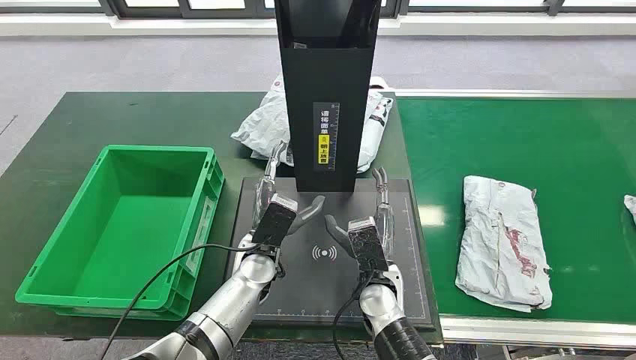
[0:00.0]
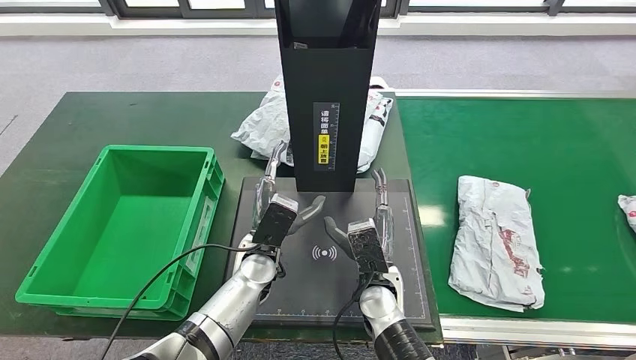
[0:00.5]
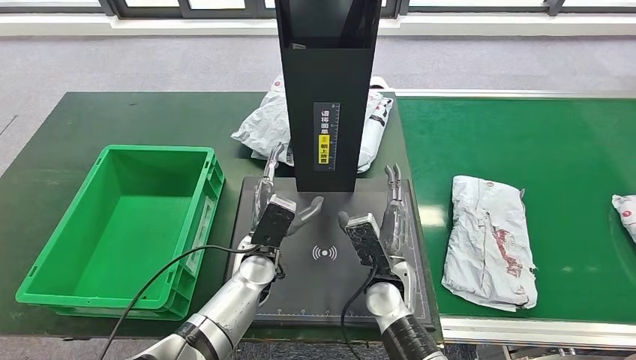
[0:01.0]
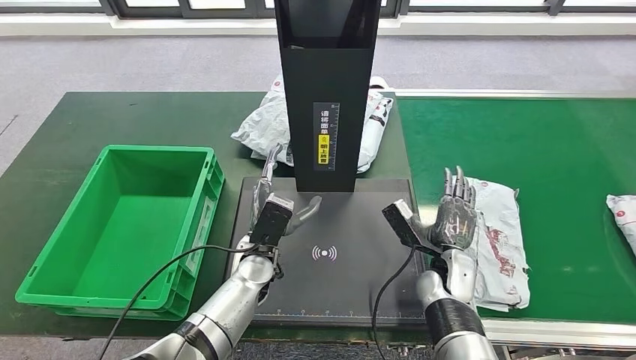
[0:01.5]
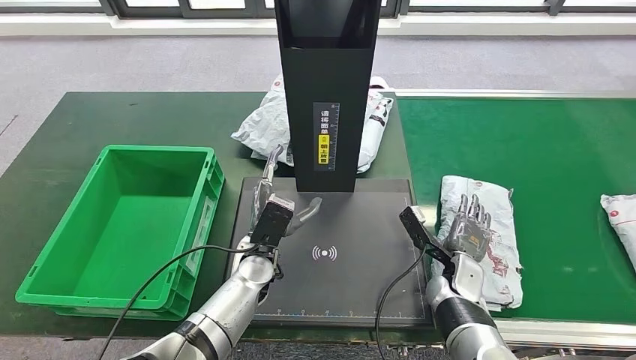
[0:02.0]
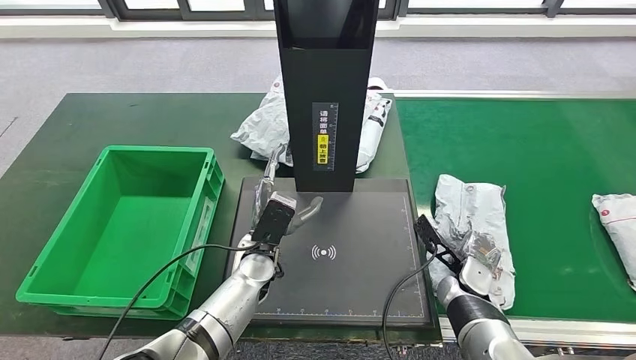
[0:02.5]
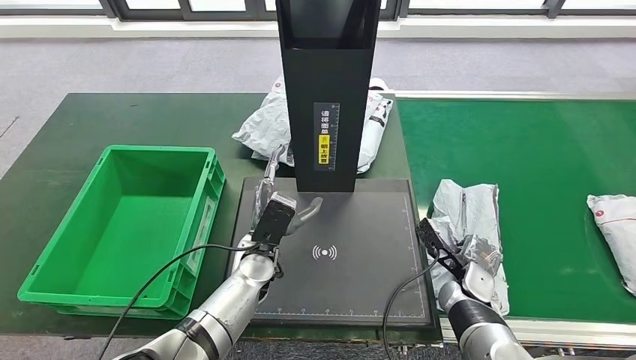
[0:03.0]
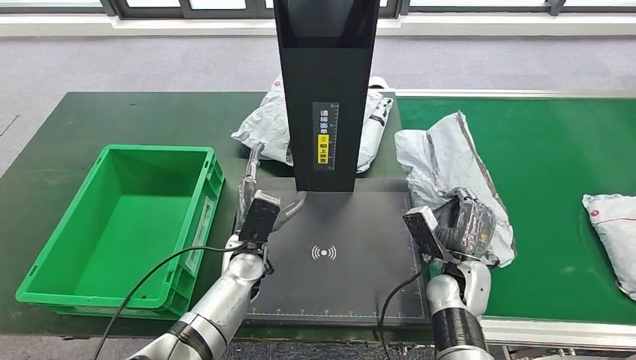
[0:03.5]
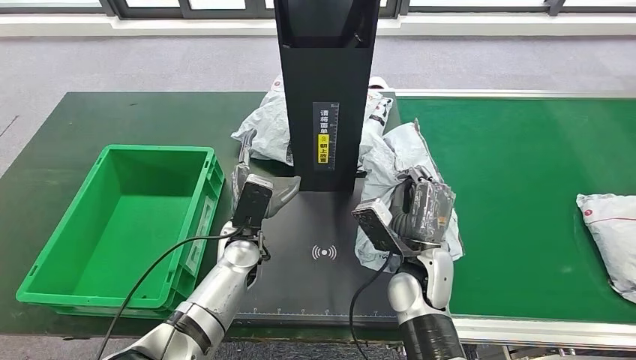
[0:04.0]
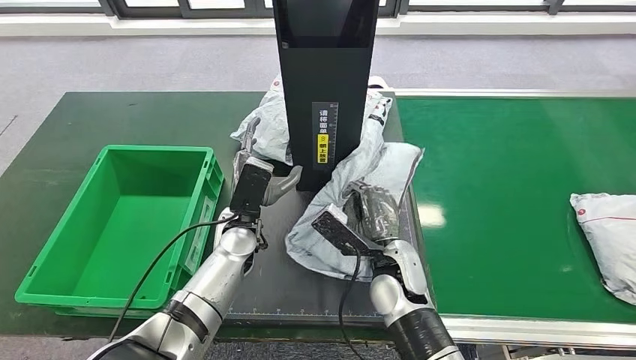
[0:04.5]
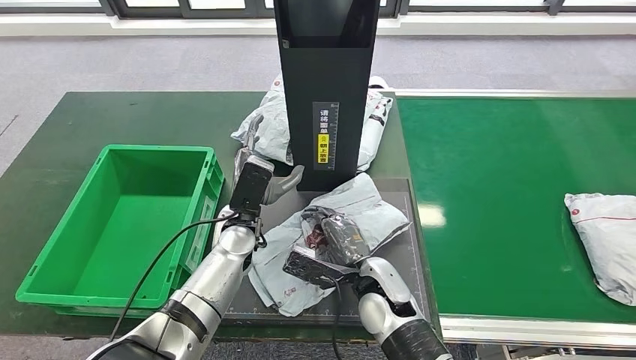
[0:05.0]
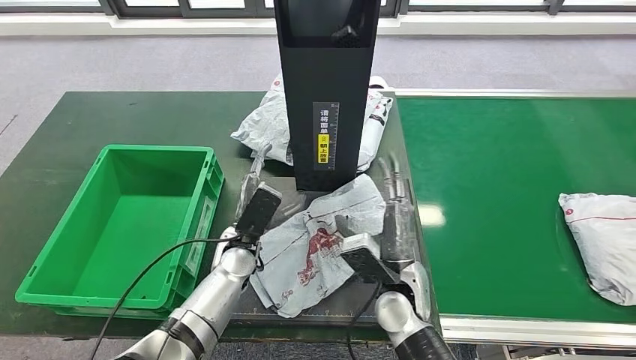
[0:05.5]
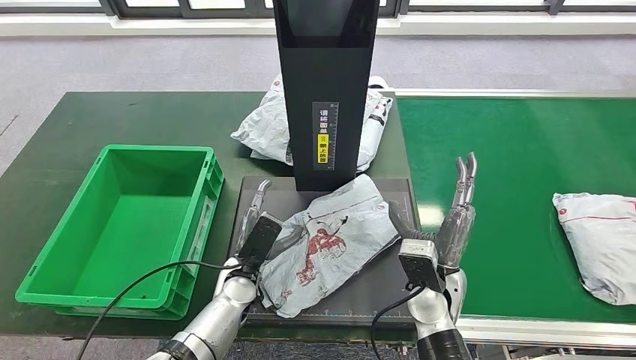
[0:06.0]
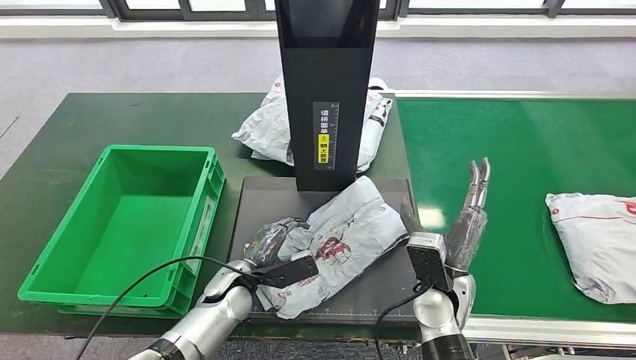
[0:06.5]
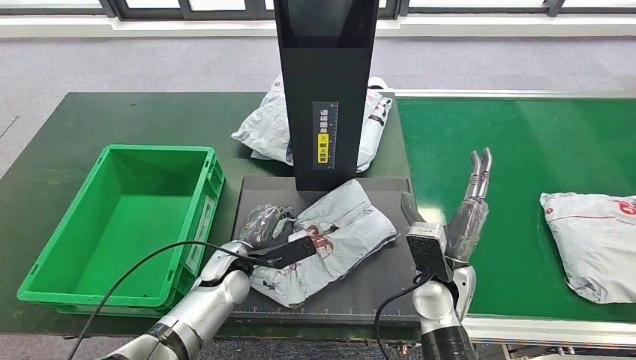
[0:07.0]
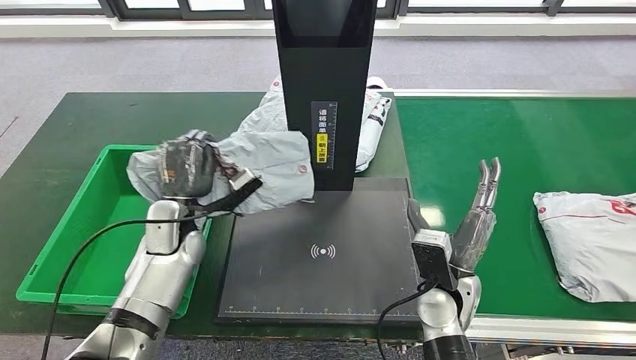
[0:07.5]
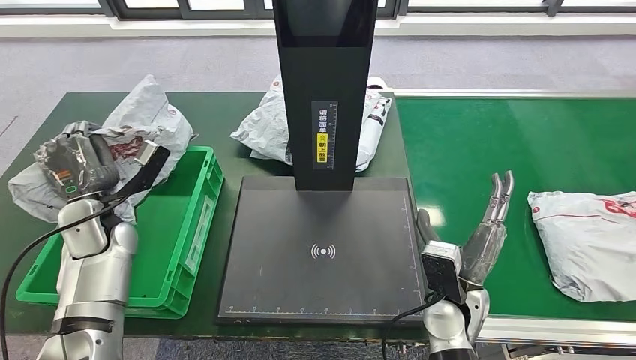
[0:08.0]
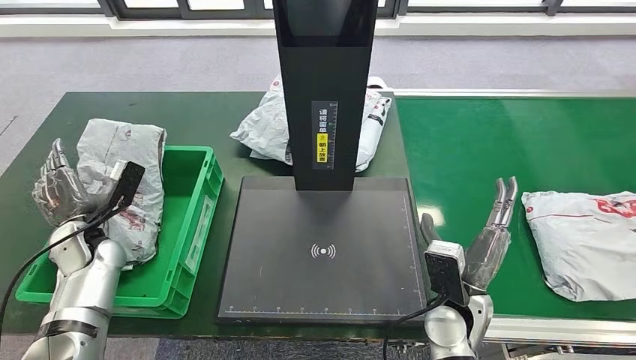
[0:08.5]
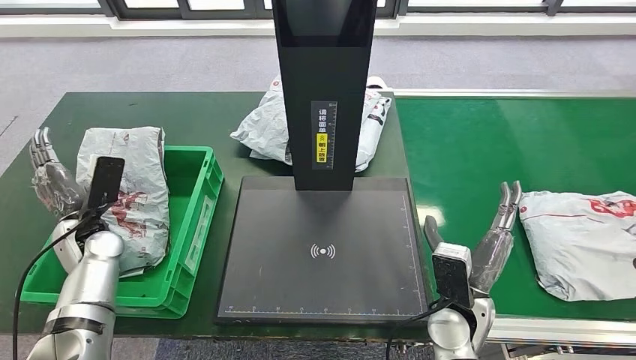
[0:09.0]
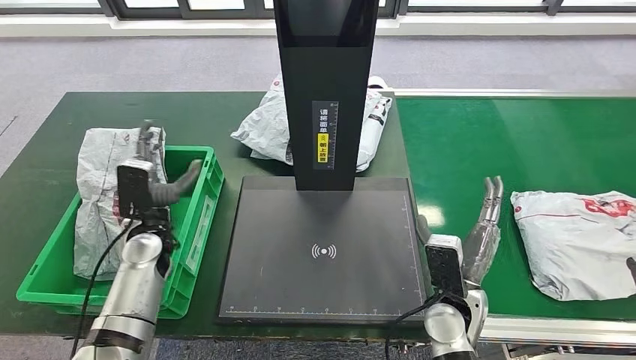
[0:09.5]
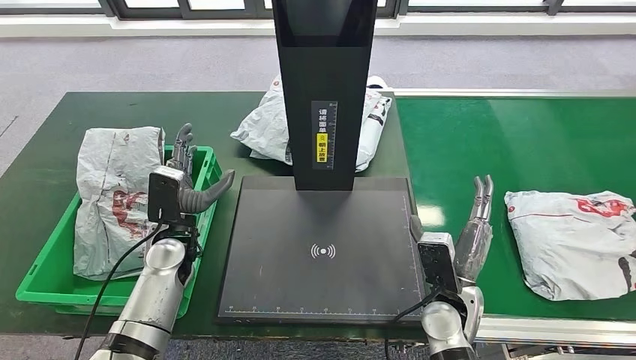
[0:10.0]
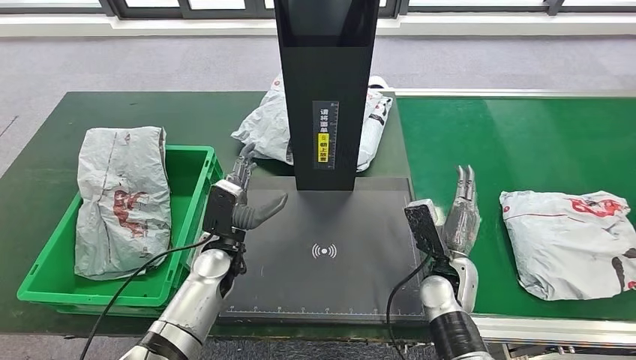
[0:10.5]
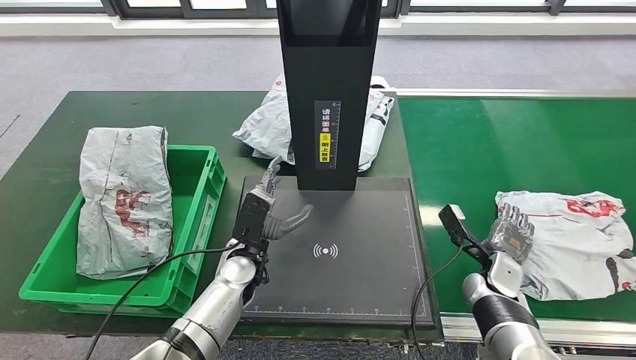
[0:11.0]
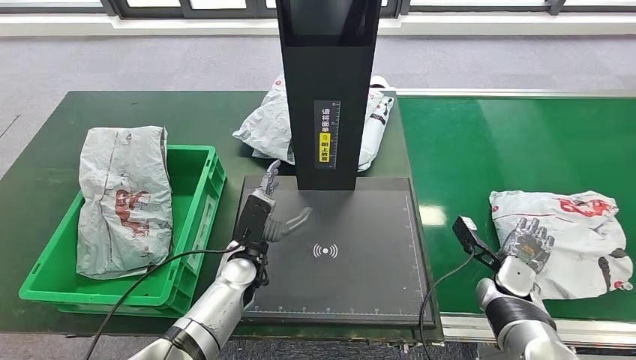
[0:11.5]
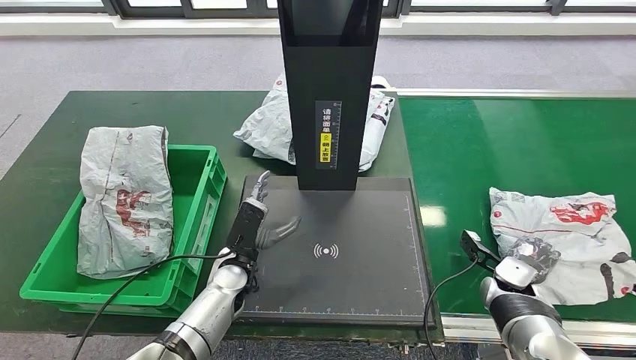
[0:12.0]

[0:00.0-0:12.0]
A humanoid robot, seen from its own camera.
Step, 0:00.0 to 0:04.0: Take the parcel off the conveyor belt.
Step, 0:04.5 to 0:06.0: Place the parcel onto the inbound machine.
Step, 0:06.5 to 0:07.5: Pick up the parcel from the inbound machine.
Step, 0:08.0 to 0:09.5: Put the parcel inside the courier box.

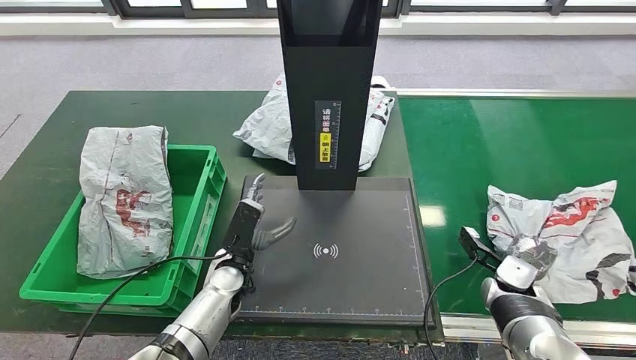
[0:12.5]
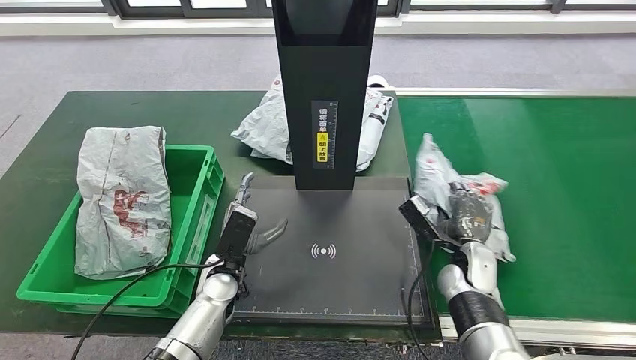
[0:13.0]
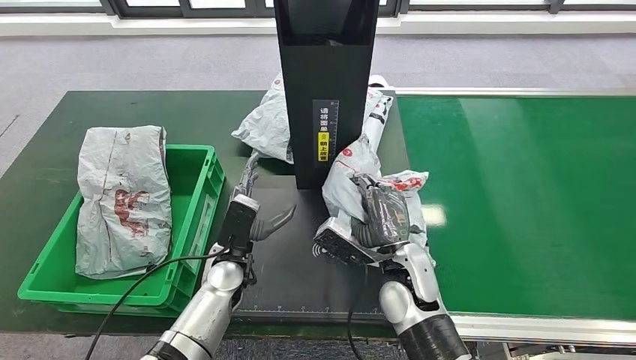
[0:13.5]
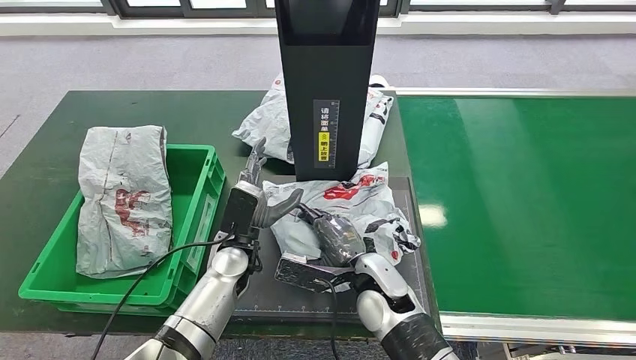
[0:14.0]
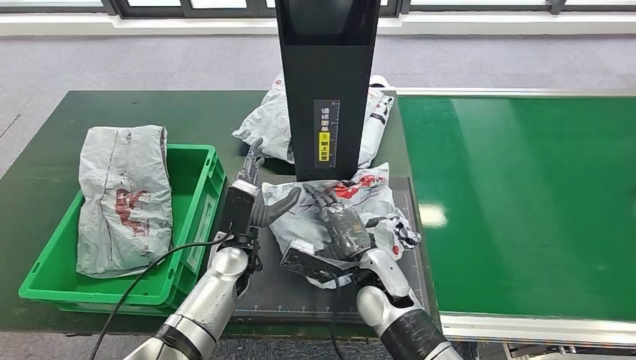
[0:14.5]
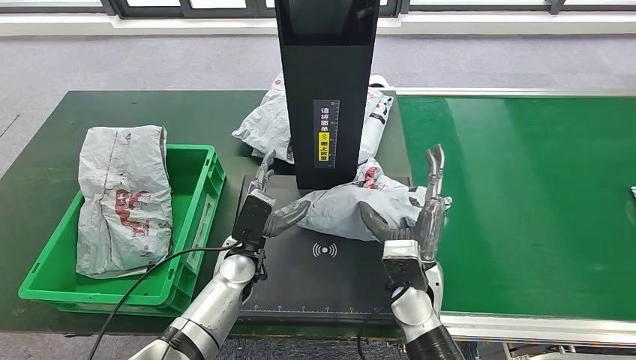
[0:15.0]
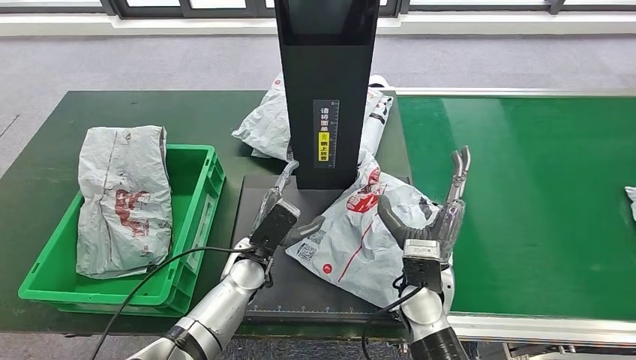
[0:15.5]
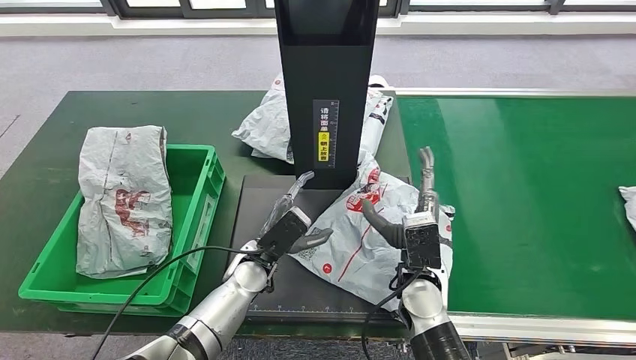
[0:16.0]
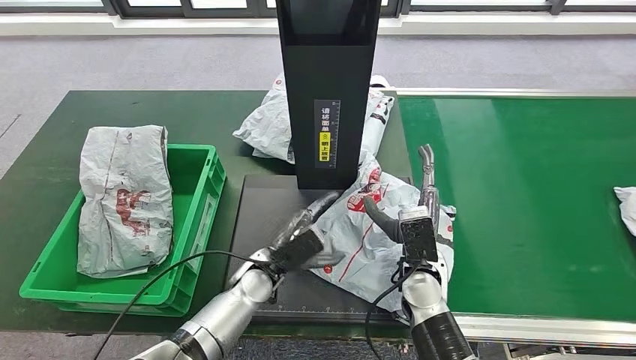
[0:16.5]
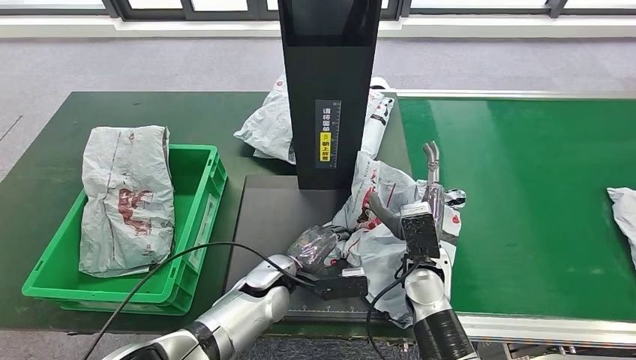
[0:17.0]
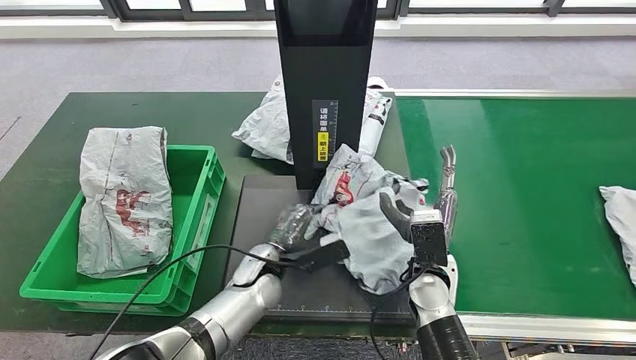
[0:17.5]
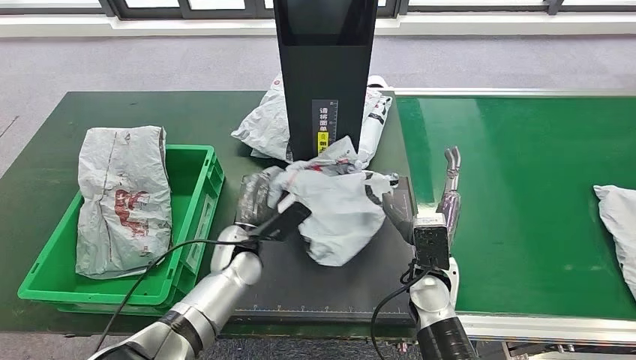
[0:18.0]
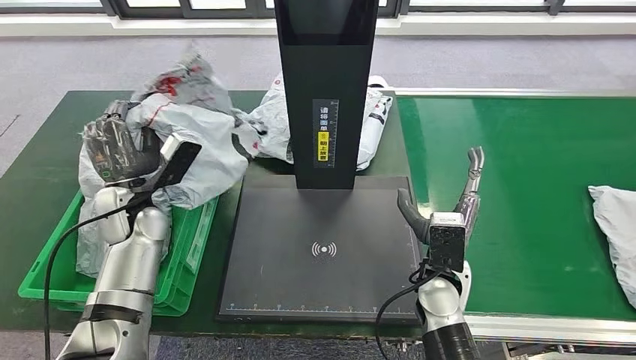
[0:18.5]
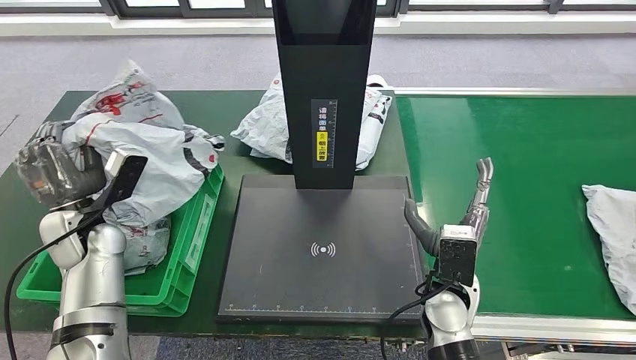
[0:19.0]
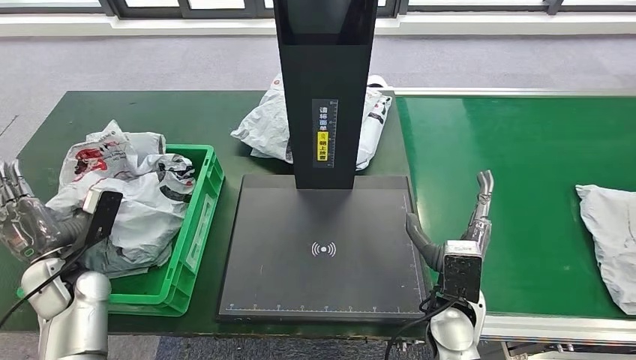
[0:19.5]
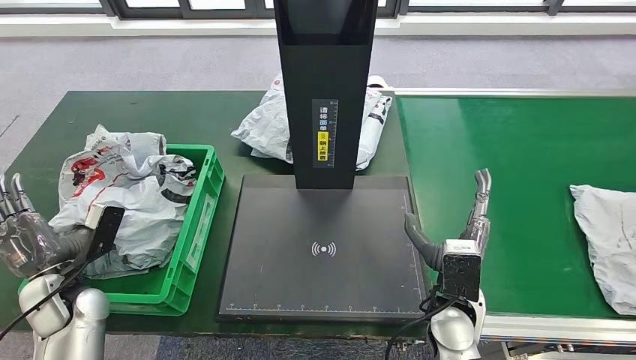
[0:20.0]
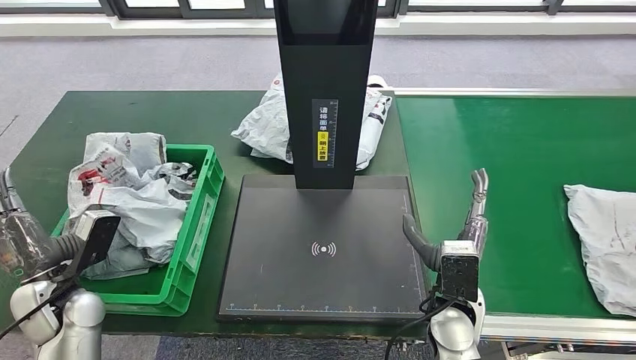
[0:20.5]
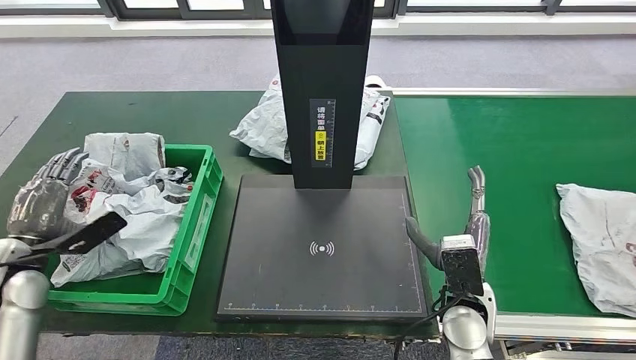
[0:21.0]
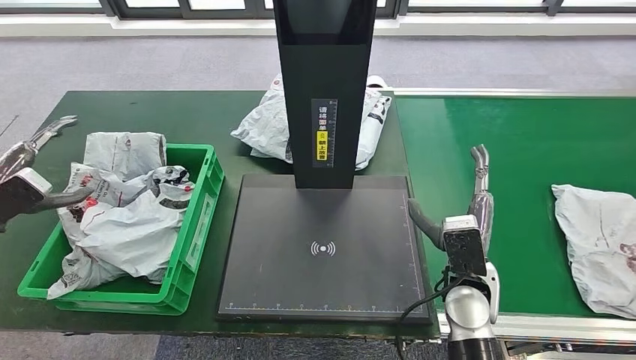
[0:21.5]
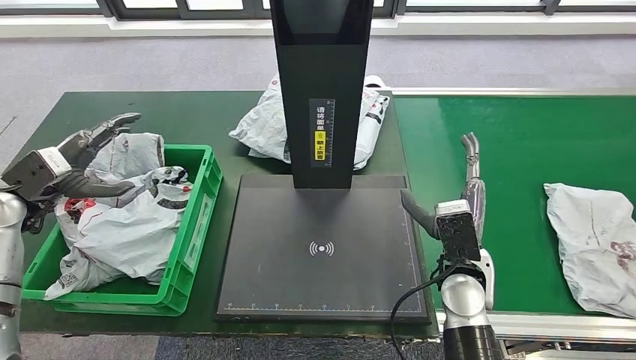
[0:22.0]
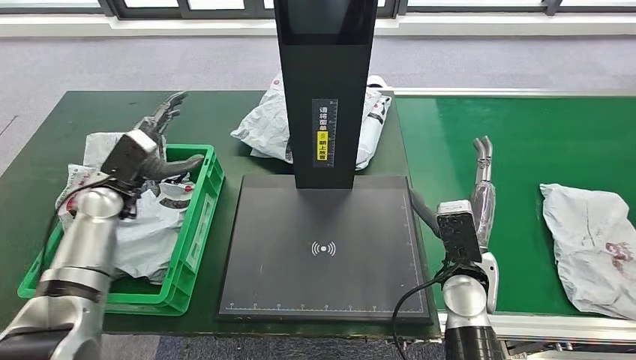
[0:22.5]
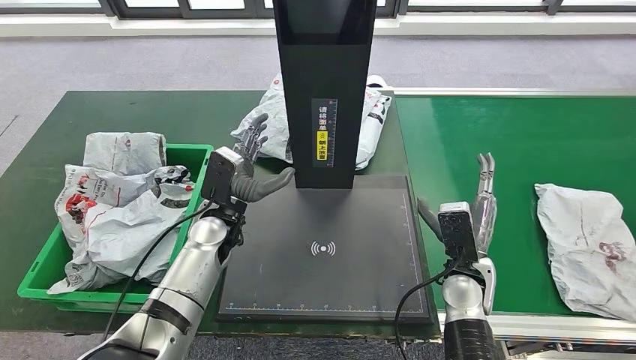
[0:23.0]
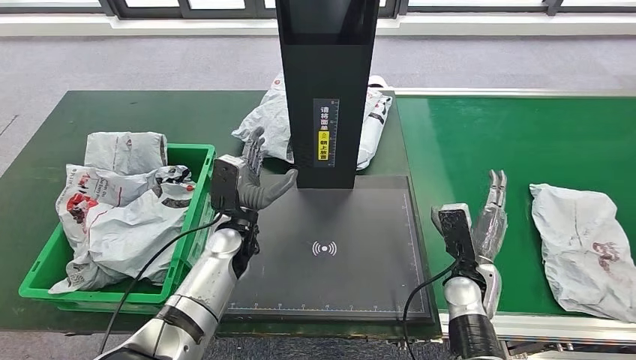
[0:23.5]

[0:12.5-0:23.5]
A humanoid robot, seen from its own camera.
Step, 0:13.5 to 0:15.0: Place the parcel onto the inbound machine.
Step, 0:16.0 to 0:18.5: Pick up the parcel from the inbound machine.
Step, 0:19.0 to 0:20.0: Place the parcel into the delivery box.
0:14.5 to 0:16.0: The right hand travels to the right by approximately 5 cm.
0:20.0 to 0:21.5: The left hand goes about 20 cm upward, to the left and forward.
0:21.5 to 0:23.5: The right hand travels downward by roughly 5 cm, while the left hand heads to the right, covering roughly 40 cm.
